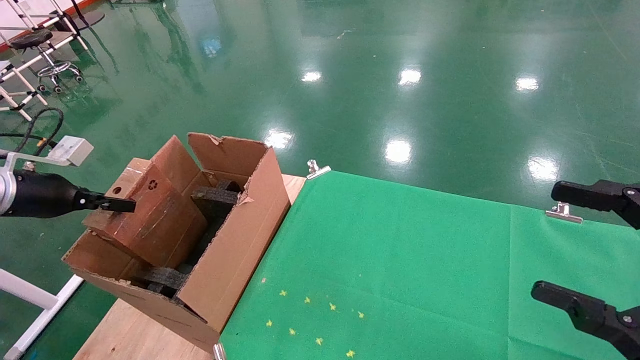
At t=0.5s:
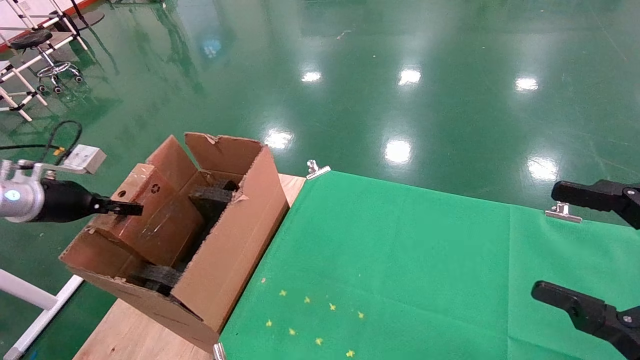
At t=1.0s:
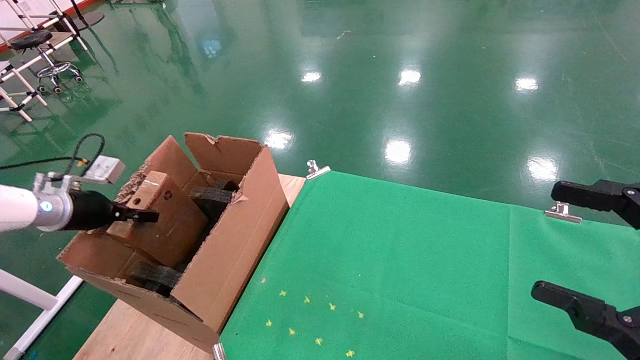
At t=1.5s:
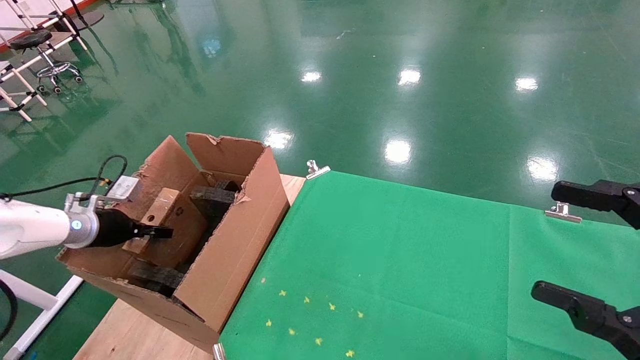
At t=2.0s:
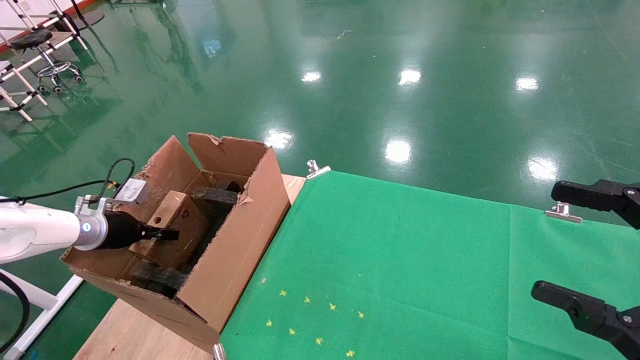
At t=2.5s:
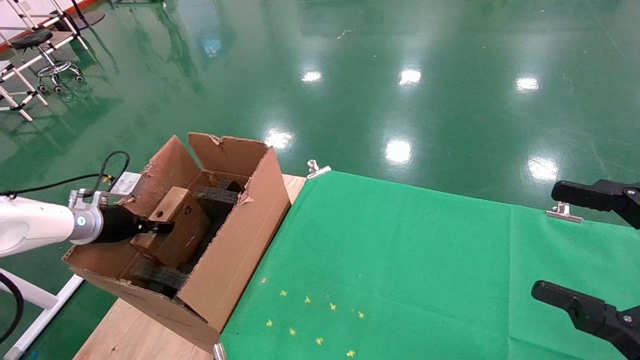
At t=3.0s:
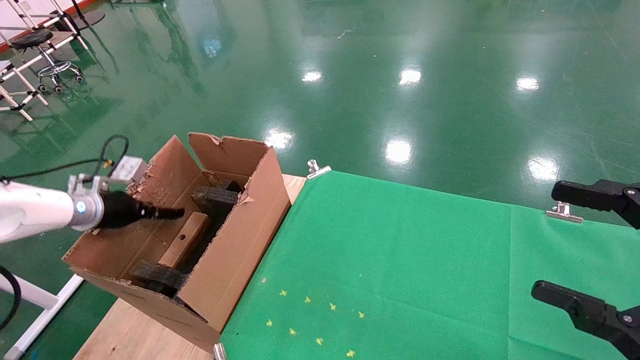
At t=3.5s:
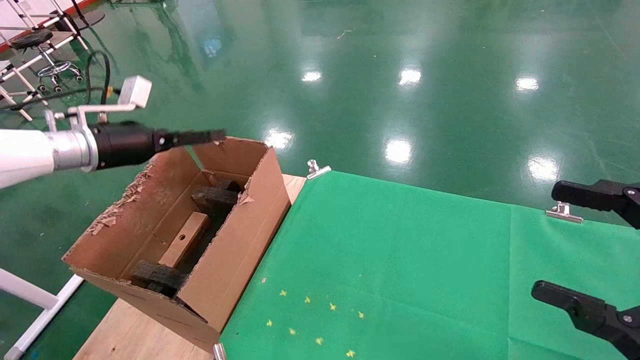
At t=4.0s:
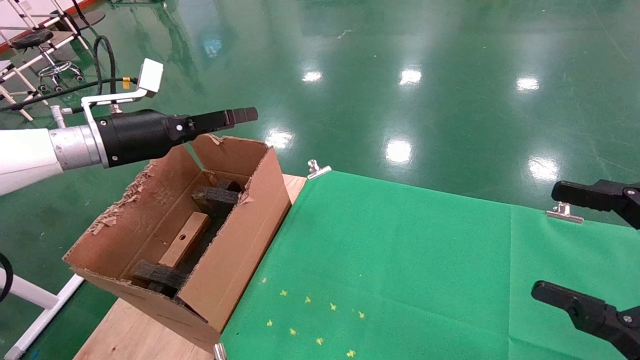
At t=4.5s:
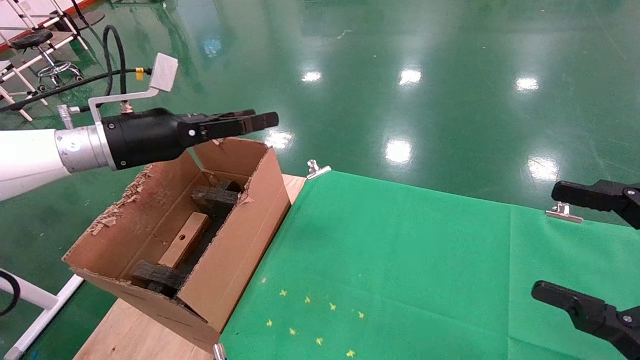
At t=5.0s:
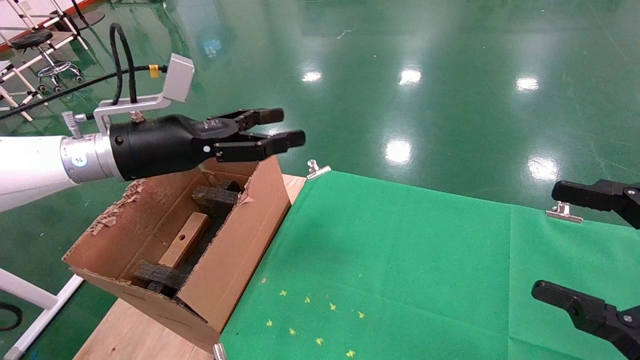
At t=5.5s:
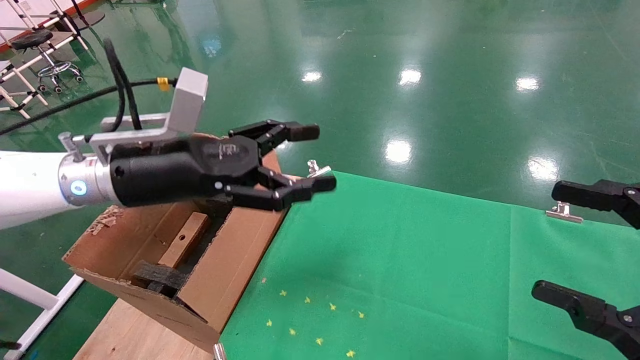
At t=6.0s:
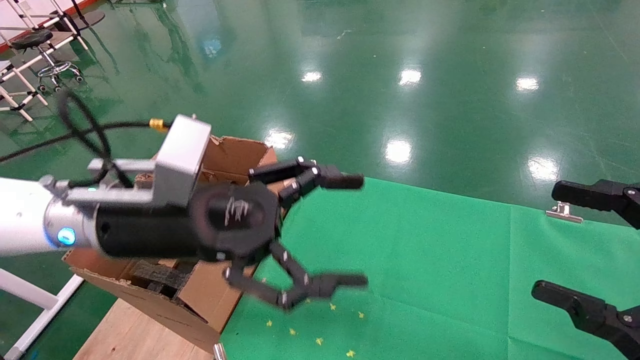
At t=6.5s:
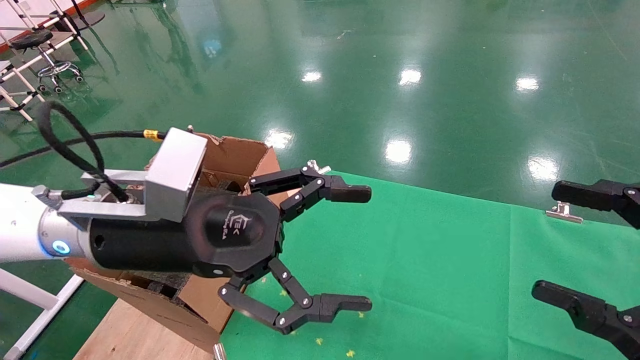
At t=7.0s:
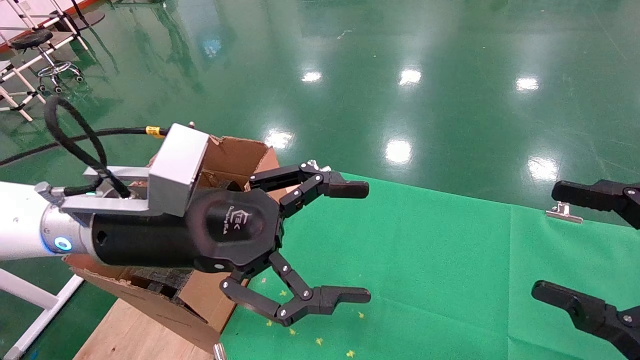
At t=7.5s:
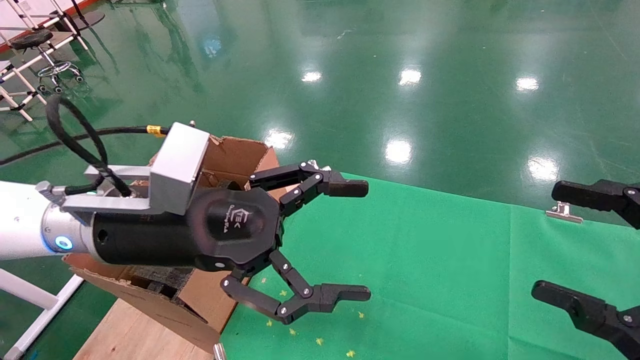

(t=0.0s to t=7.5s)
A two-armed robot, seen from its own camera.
Task of the whole recording: using a robotic arm to pick up a cardboard box and palace it the carton.
Step, t=0.0s - t=3.0s: Place the mouse and the power cord paper box into the container.
t=0.0s - t=2.0s: The left gripper travels downward and forward by roughly 15 cm.
t=2.0s - t=4.0s: The left gripper travels upward and to the right by some 20 cm, and opens.
t=4.0s - t=5.5s: The left gripper goes some 15 cm to the right and backward.
t=5.5s - t=7.5s: The left gripper shifts approximately 5 cm backward.

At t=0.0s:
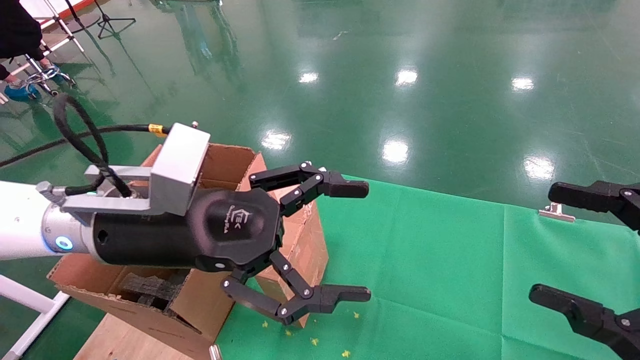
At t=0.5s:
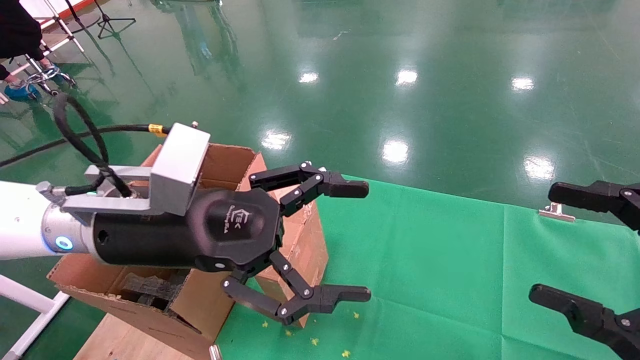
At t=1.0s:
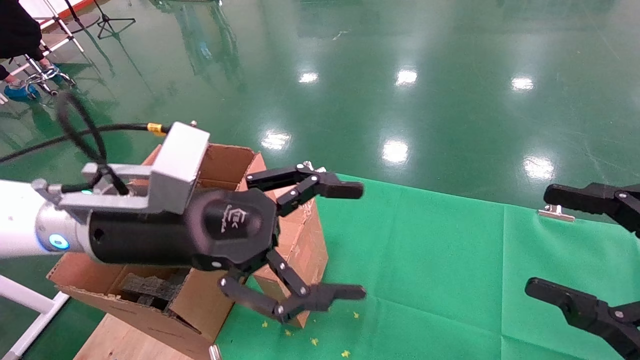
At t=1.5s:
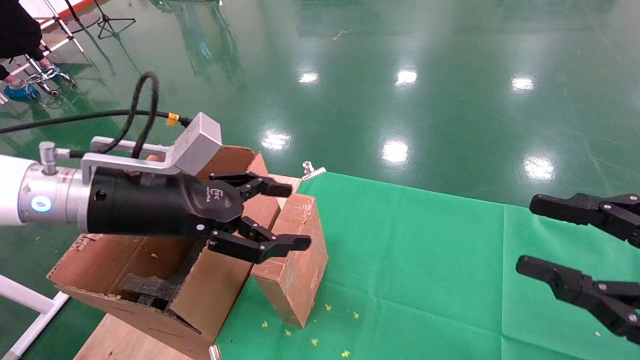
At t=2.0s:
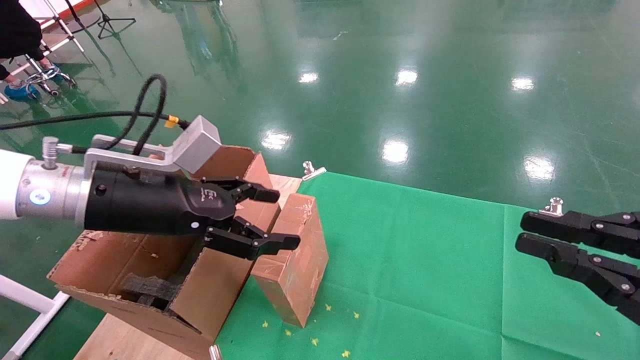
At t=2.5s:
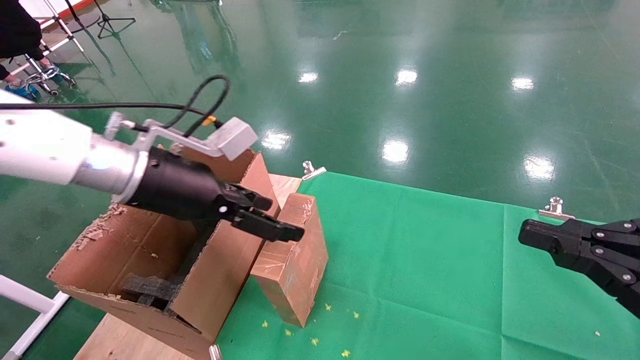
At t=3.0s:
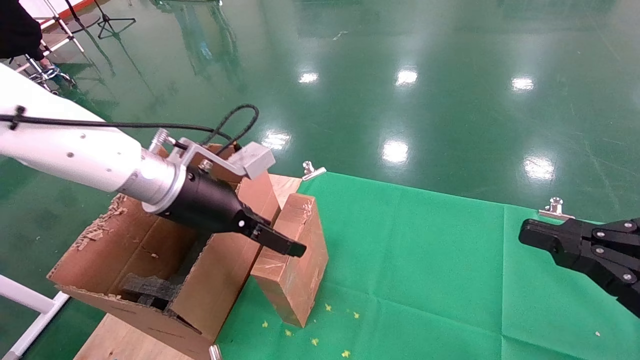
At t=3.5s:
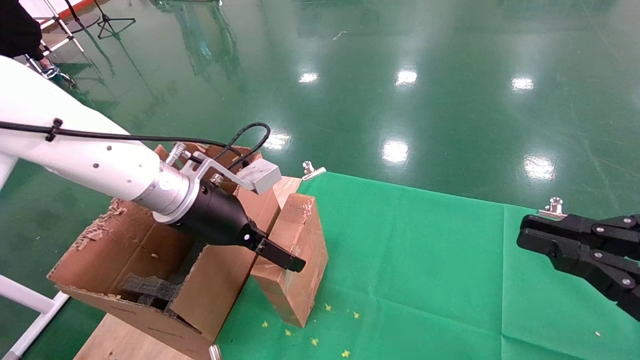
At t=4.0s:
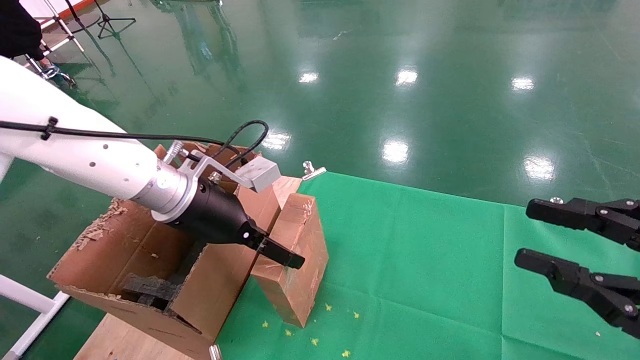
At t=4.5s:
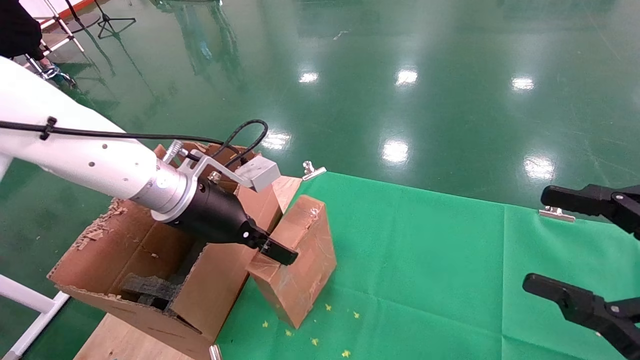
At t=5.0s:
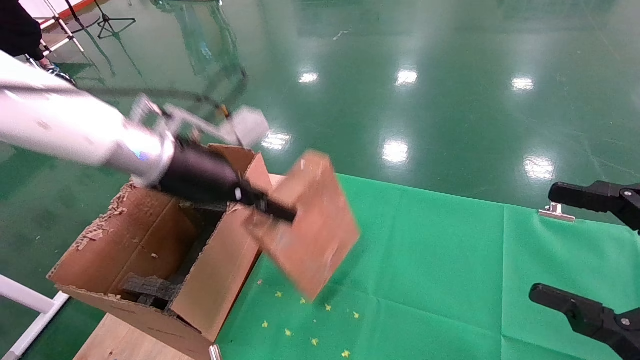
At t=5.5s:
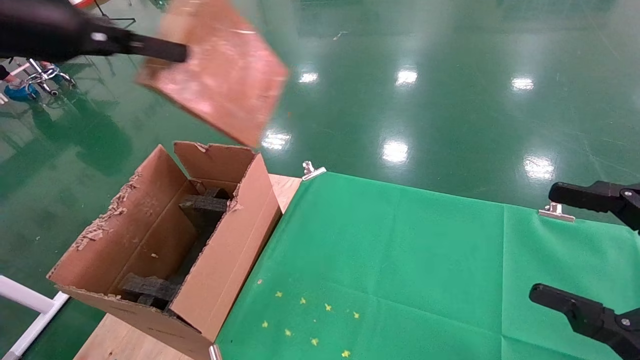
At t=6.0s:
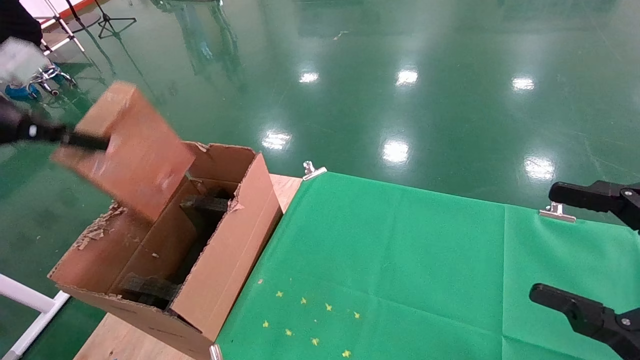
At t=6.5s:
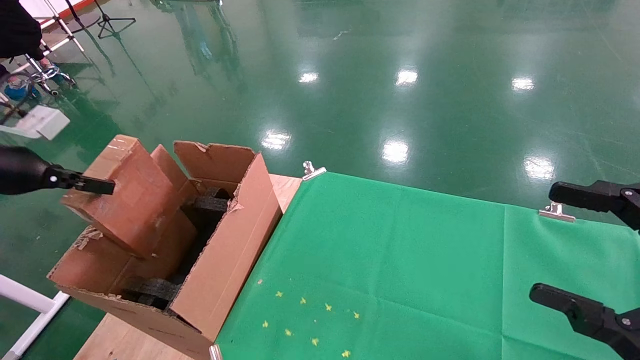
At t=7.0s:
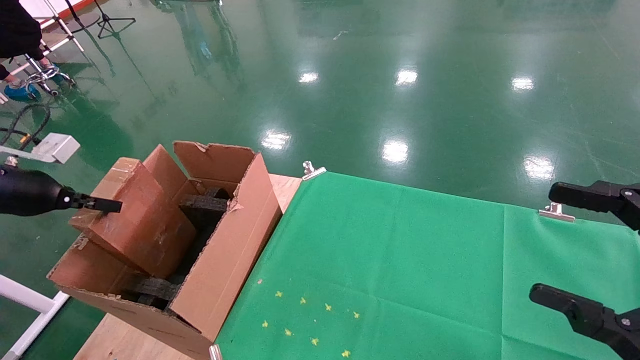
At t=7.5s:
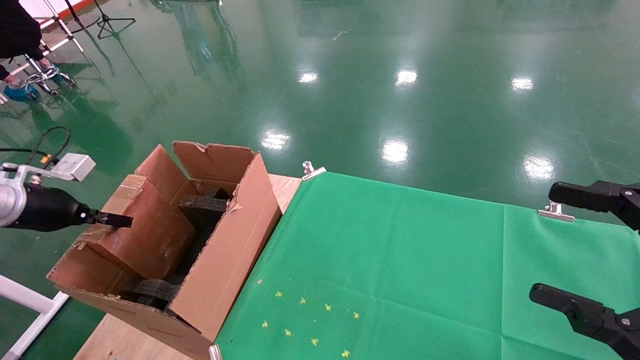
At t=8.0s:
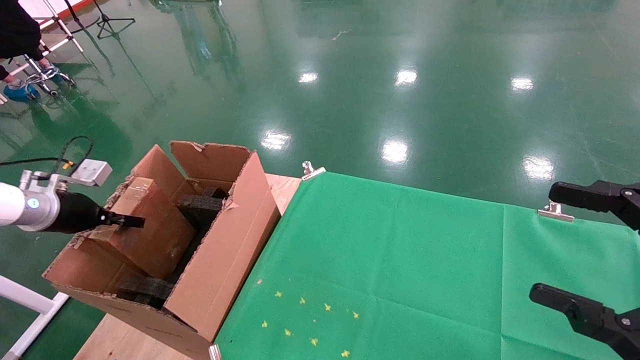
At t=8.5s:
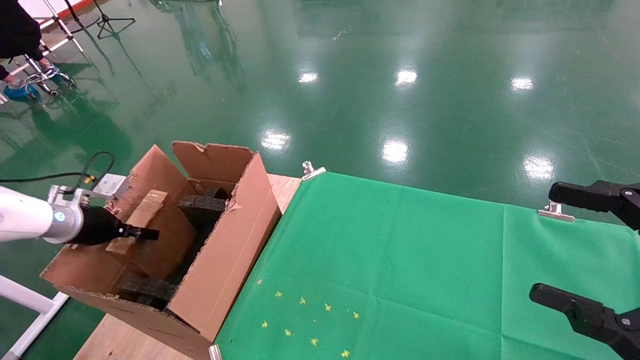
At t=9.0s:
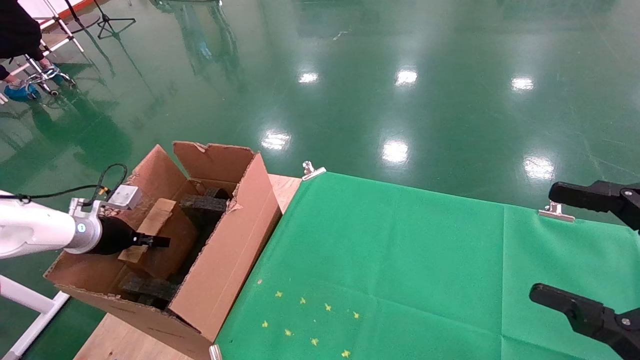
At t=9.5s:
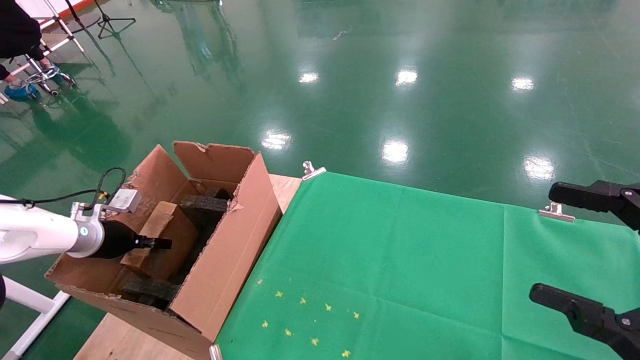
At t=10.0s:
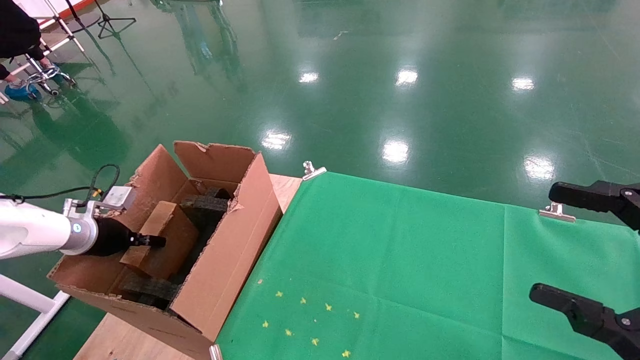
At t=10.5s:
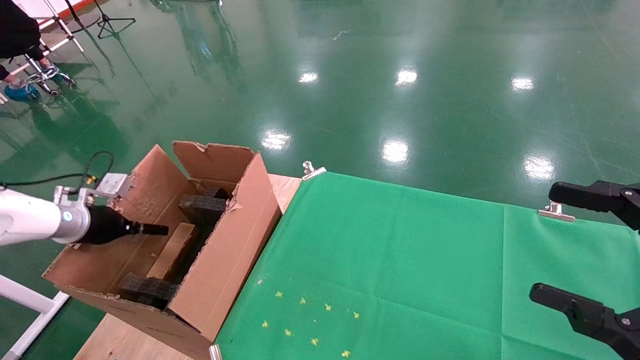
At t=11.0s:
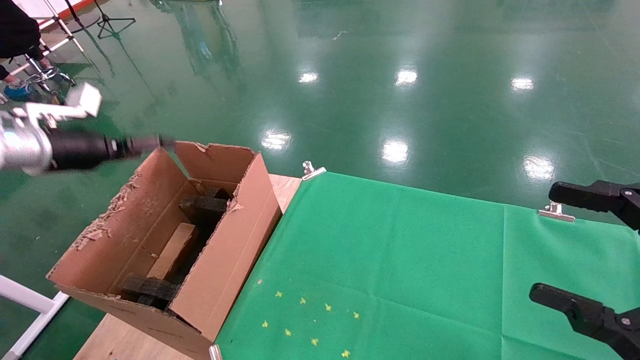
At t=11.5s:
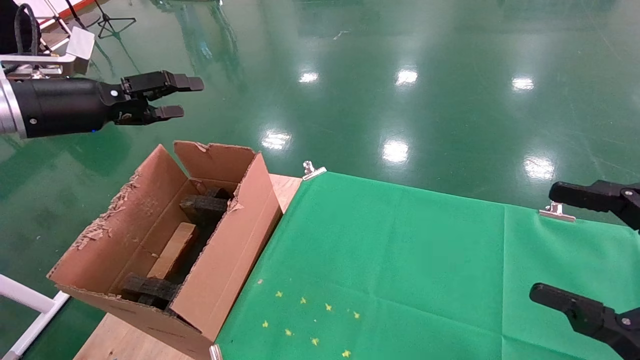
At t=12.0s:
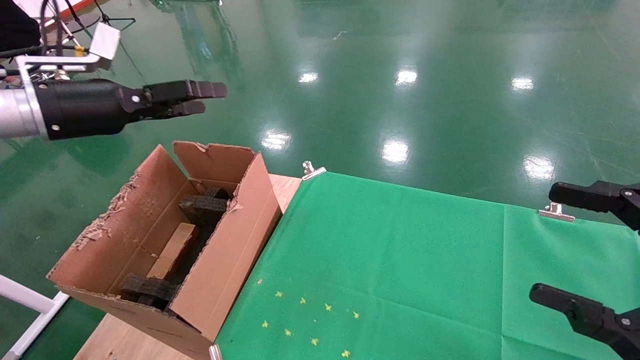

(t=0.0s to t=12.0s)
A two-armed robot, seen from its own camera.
Task of the whole recording: using a robotic arm to pick up a cardboard box and palace it the carton.
Step, t=1.0s - t=4.5s: Pick up the mouse and the power cord paper box.
Step, t=5.0s - t=10.5s: Place the mouse and the power cord paper box into the container.
t=0.0s - t=2.0s: The left gripper is displaced to the left by roughly 5 cm. The right gripper closes up.
t=2.0s - t=4.0s: The left gripper shifts some 5 cm forward.
t=4.0s - t=6.0s: The left gripper travels to the left and upward by some 30 cm, and closes. Meanwhile the right gripper opens its fingers.
t=6.0s - t=8.0s: The left gripper shifts approximately 20 cm downward and forward.
t=8.0s - t=10.0s: The left gripper travels downward by roughly 5 cm.
t=10.0s - t=12.0s: The left gripper shifts approximately 25 cm upward and to the right, and opens up.
